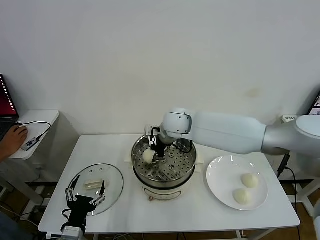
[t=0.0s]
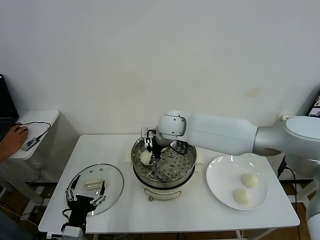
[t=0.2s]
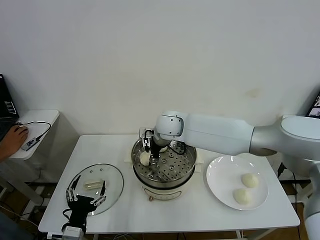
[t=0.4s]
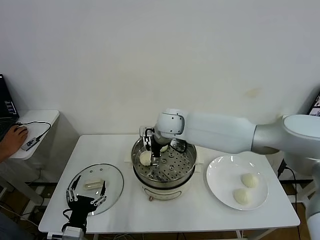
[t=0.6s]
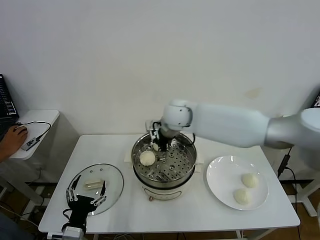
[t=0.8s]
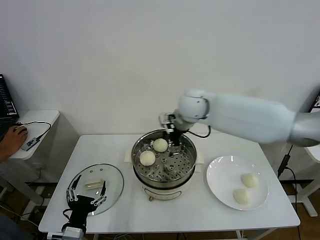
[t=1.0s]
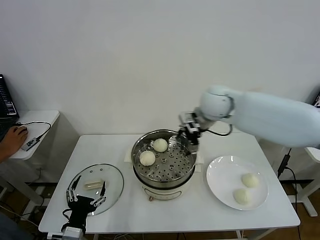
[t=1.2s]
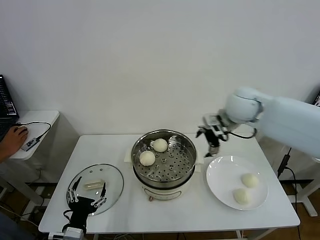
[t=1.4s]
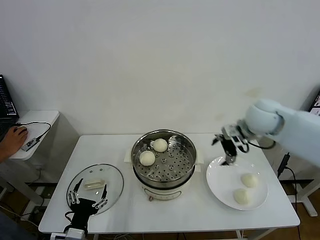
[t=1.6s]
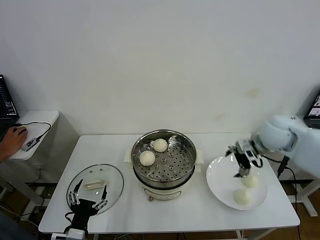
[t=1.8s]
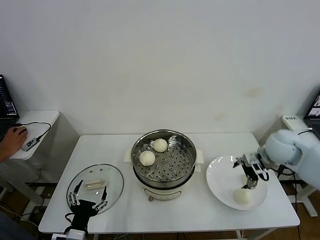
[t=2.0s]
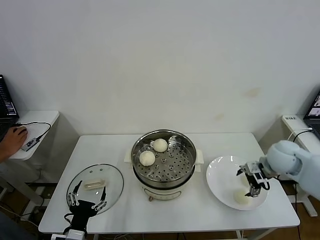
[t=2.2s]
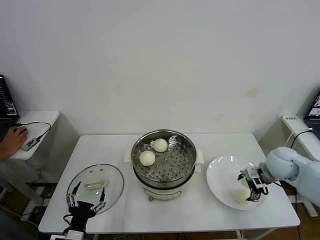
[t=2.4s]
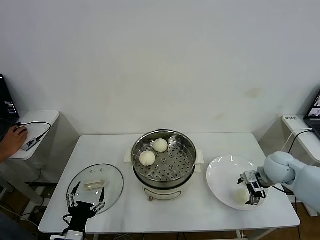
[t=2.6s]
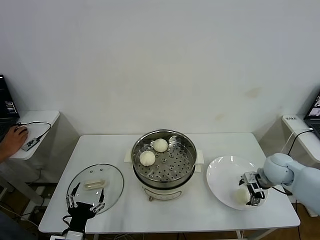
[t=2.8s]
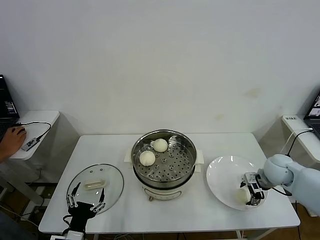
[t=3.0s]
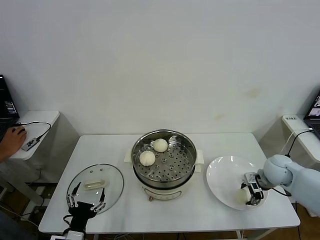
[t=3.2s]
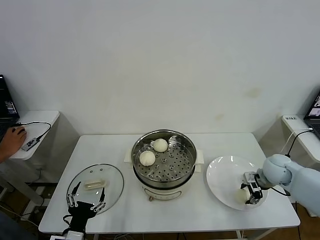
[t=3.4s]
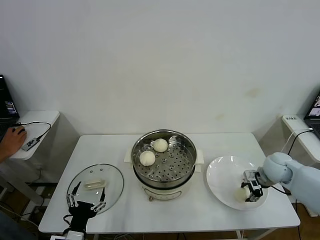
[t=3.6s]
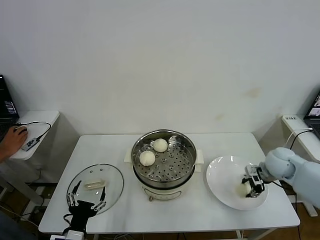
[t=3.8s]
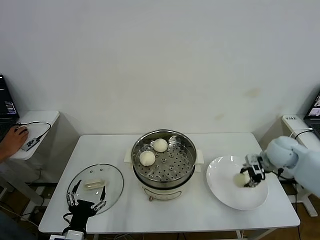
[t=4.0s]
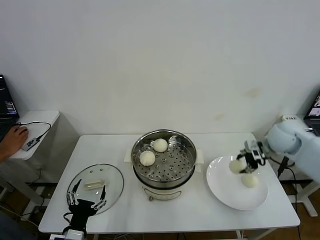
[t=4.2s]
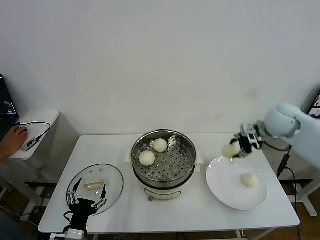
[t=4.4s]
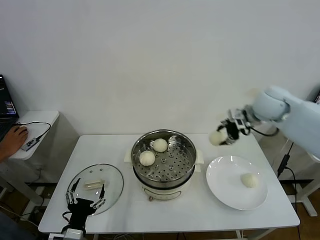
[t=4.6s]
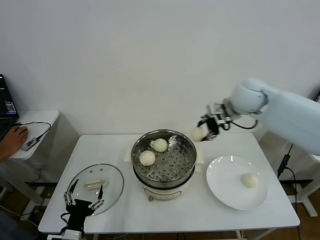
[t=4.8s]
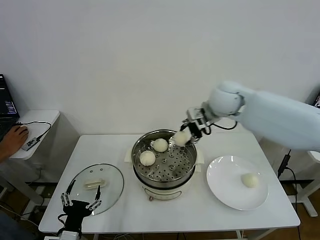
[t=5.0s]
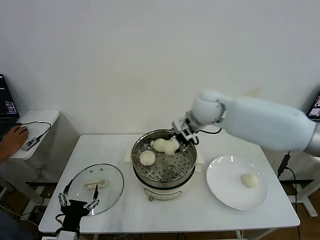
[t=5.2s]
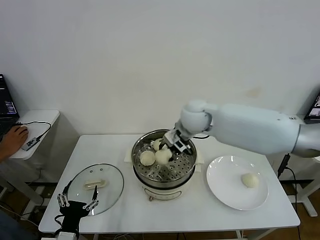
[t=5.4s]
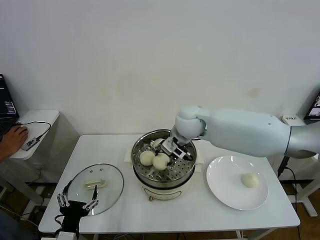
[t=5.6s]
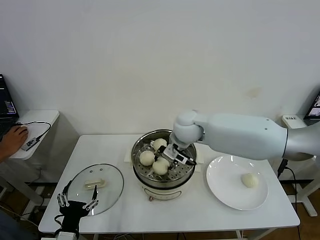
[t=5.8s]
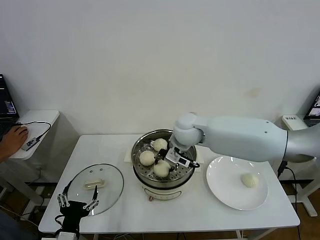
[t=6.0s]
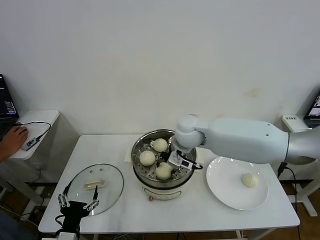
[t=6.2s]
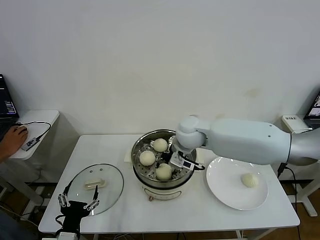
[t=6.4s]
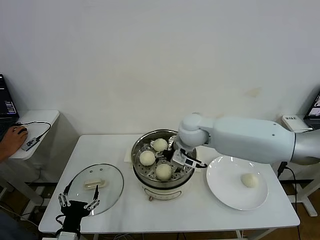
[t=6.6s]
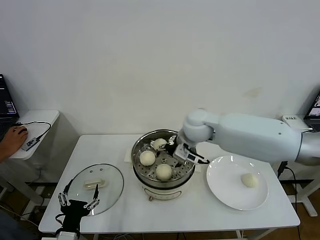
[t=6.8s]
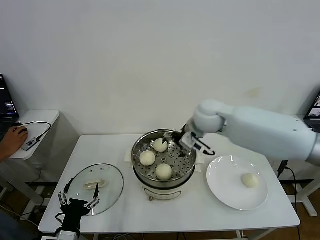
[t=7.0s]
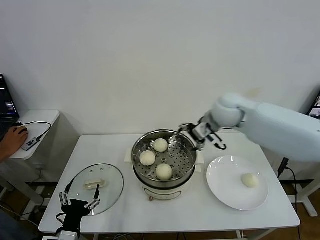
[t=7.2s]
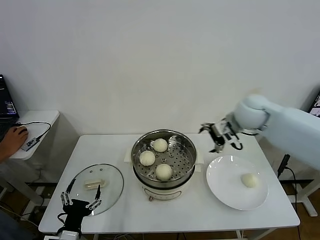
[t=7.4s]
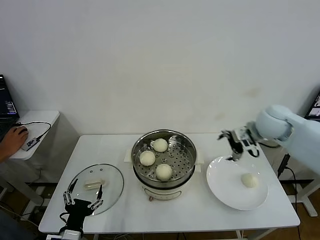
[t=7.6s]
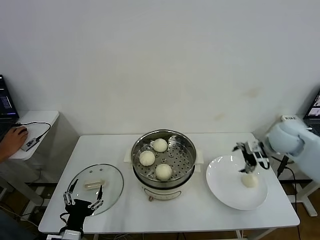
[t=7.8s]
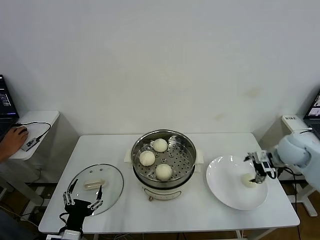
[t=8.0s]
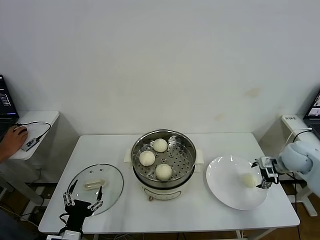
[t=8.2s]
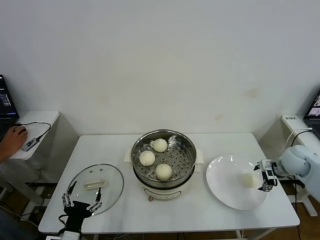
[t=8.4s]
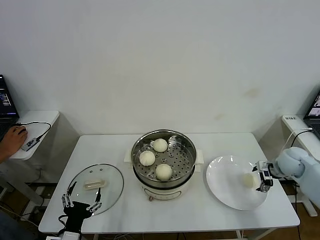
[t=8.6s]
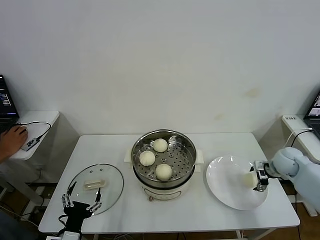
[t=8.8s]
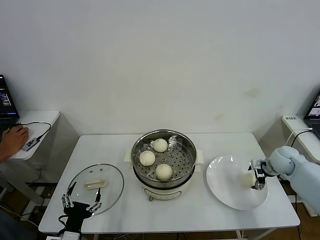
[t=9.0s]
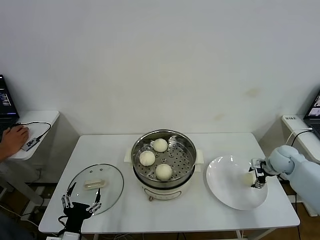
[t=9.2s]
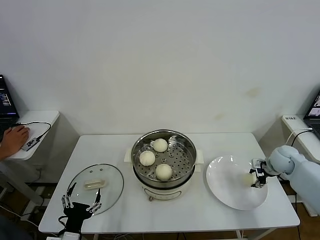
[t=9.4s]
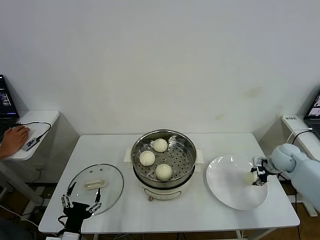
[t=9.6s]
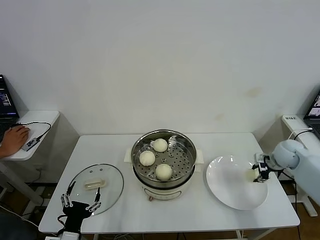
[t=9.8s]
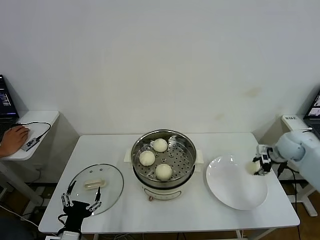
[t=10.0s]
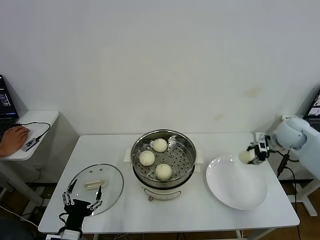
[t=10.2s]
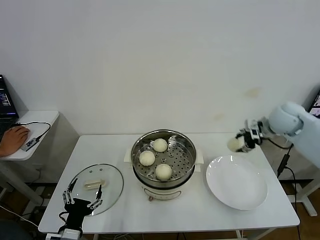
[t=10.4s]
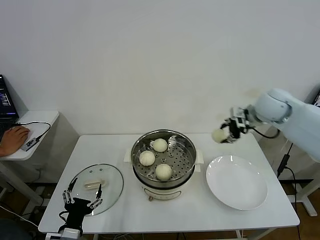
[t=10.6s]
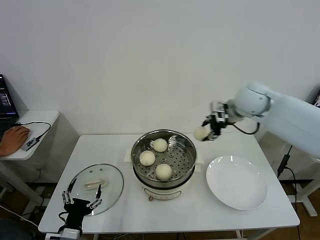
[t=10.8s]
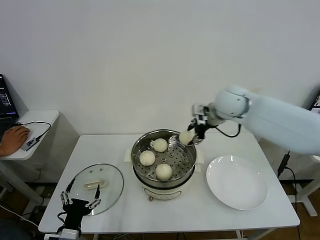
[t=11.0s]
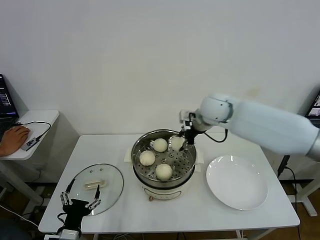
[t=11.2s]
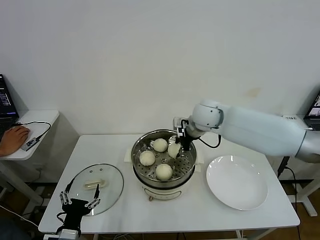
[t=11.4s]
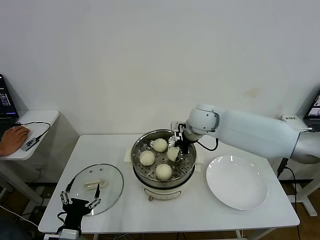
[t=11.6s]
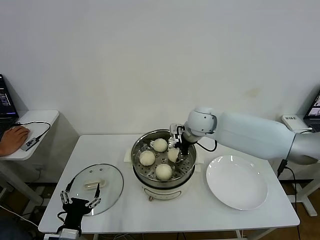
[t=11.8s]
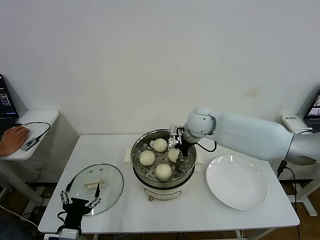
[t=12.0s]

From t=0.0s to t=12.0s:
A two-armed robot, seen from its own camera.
Task of the whole recording: take steamed baozi put them in steamer then cover it.
Step, from t=0.8s to t=3.4s: Grasp the baozi in the plate with right gripper.
Step, from t=3.8s to t=6.6s: Place the baozi on the steamer with right gripper.
Step, from t=6.8s to t=9.6s: Grasp the baozi in the plate with right gripper.
From t=0.0s to t=1.6s: The right gripper shifts about 25 cm to the right, and opens its fingers.
From t=1.6s to t=3.0s: The right gripper is displaced downward and to the right by some 20 cm.
From t=3.0s to t=4.4s: The right gripper is displaced upward and forward by approximately 15 cm, and closes.
From t=4.4s to t=6.0s: The right gripper travels to the left by about 30 cm.
From t=6.0s to t=7.6s: The right gripper goes some 25 cm to the right, and opens.
From t=7.6s to t=9.0s: The right gripper travels downward and to the right by about 20 cm.
From t=9.0s to t=10.4s: The right gripper moves upward, approximately 15 cm, and closes its fingers.
From t=10.4s to t=12.0s: The right gripper goes about 25 cm to the left.

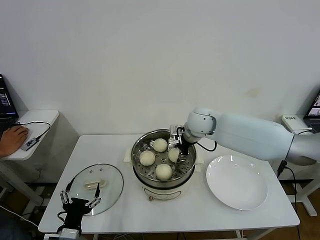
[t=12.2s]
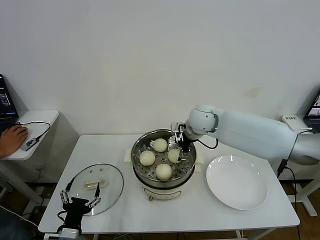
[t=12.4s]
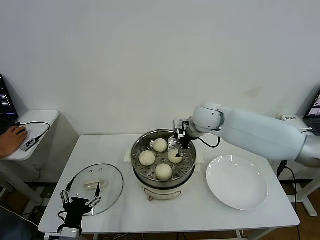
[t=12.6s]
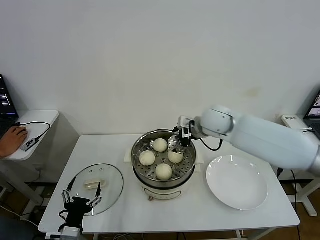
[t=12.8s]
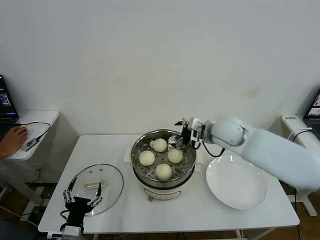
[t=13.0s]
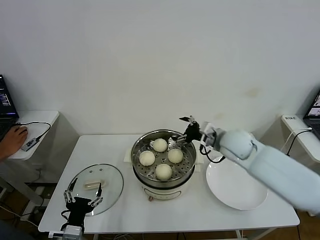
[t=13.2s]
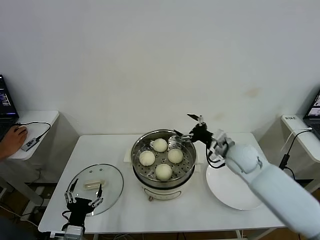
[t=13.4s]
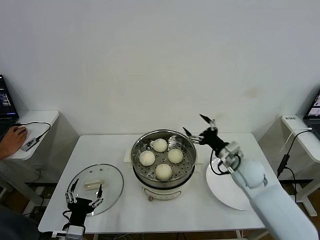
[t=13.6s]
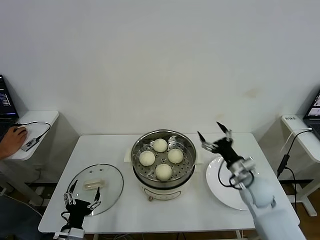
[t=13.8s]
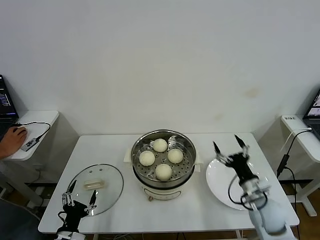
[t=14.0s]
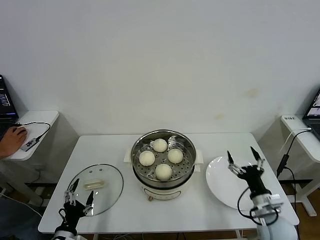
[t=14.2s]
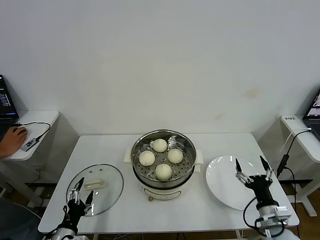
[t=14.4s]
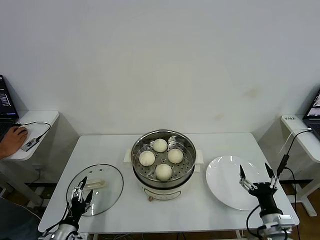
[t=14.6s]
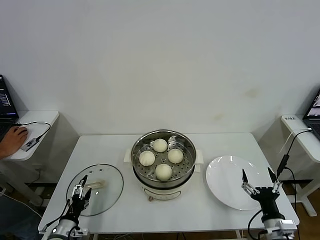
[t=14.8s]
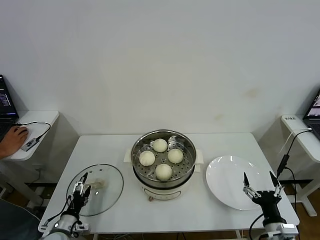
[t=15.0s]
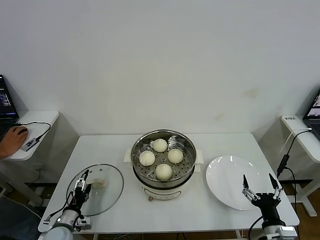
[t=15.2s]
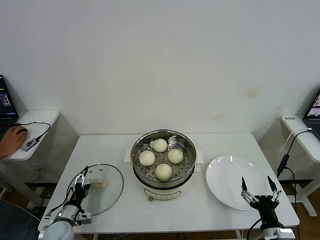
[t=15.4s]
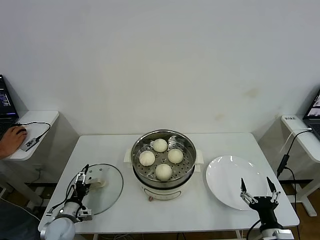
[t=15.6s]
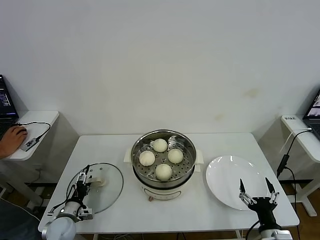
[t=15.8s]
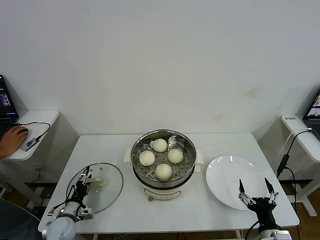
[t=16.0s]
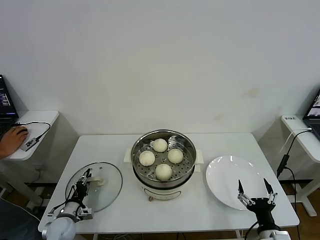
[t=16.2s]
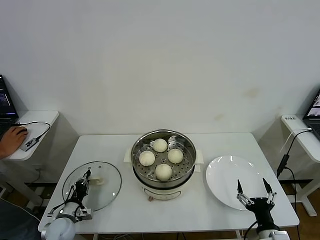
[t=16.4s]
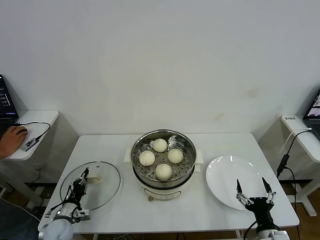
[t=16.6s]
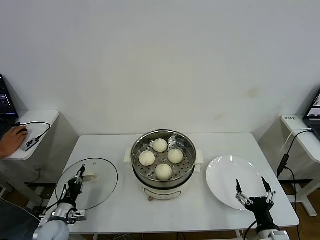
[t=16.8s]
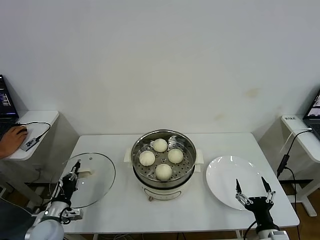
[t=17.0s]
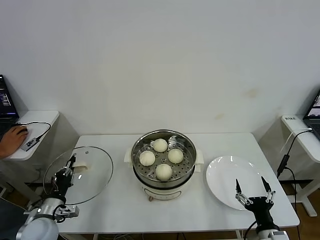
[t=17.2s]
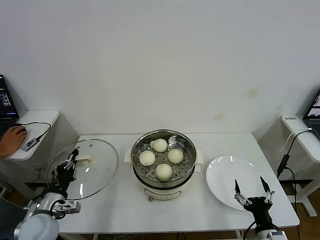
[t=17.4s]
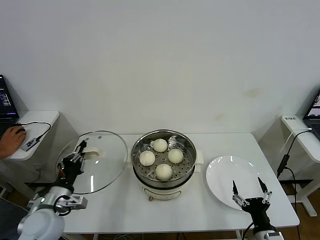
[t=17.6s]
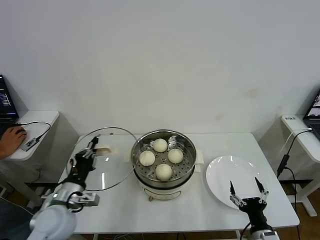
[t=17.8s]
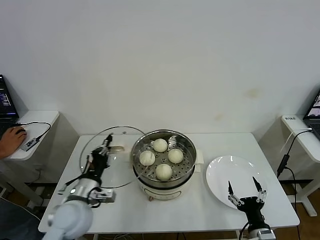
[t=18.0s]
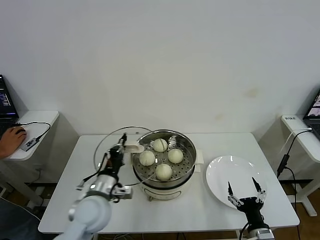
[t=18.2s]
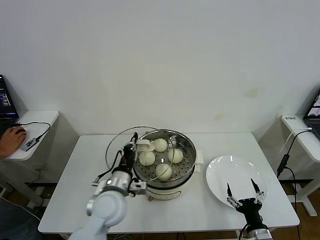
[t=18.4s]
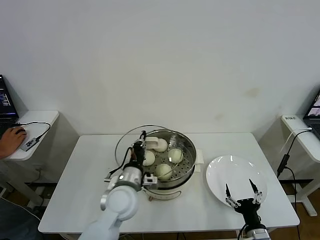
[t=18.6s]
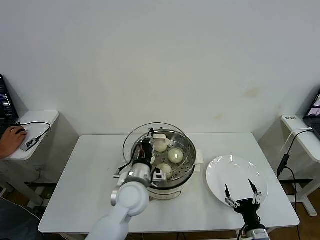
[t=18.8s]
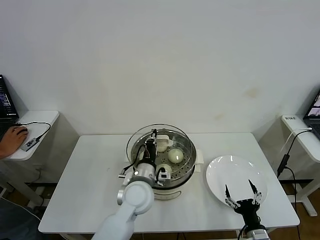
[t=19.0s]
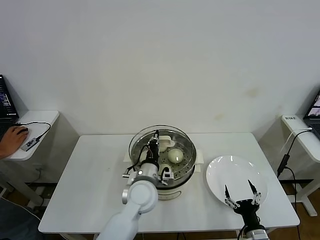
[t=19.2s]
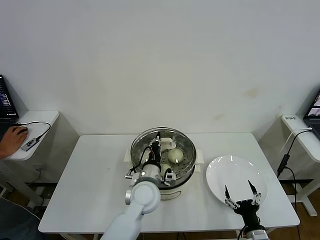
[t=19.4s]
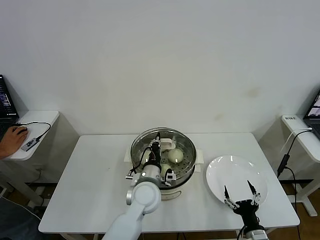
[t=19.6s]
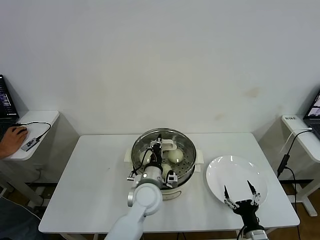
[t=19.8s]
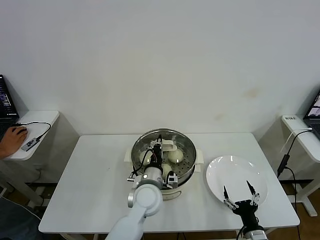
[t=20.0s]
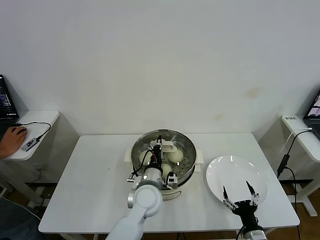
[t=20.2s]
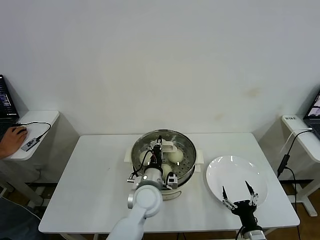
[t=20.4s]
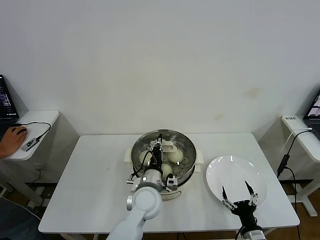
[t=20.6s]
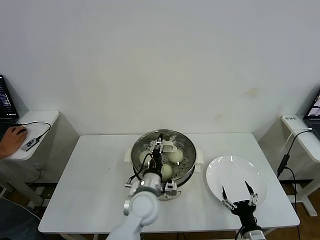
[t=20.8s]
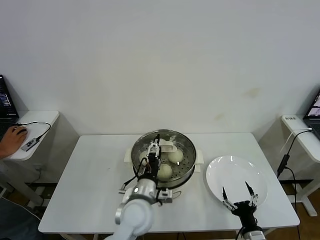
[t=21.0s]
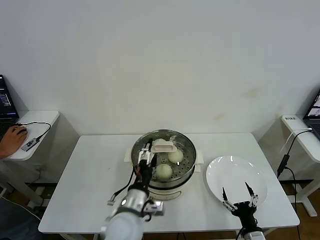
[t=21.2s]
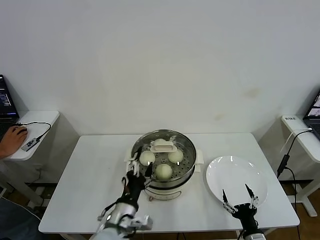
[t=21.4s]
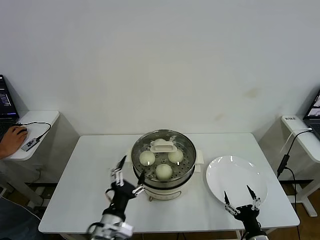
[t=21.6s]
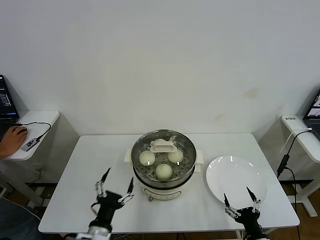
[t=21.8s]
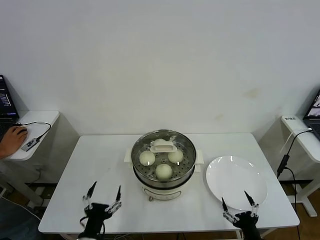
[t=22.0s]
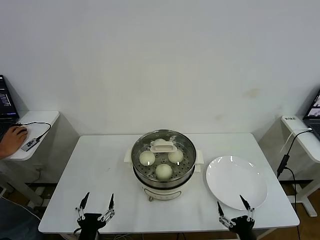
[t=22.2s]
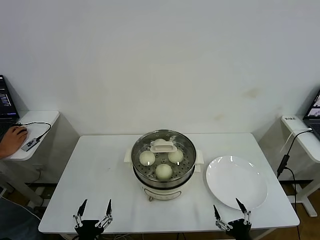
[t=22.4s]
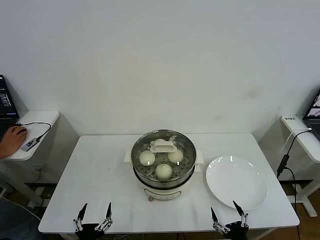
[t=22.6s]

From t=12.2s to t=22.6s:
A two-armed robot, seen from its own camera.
Task of the whole recording: take steamed baozi put them in steamer then cover it.
Step, from t=12.6s to t=16.6s: Grasp the pot lid with left gripper.
Step, from t=16.8s to t=20.8s: Place the pot lid on the steamer with left gripper.
From t=12.2s to t=13.6s: The right gripper goes about 20 cm to the right, backward and downward, and opens up.
From t=13.6s to t=15.2s: The left gripper travels to the left, downward and forward by roughly 15 cm. Meanwhile the right gripper moves backward and downward, about 25 cm.
From t=15.2s to t=16.6s: The left gripper closes.
From t=16.6s to t=18.2s: The left gripper goes approximately 25 cm upward and to the right.
From t=18.2s to t=19.6s: The left gripper is displaced to the right and forward by about 15 cm.
From t=19.6s to t=21.2s: The left gripper heads backward, covering roughly 10 cm, and opens.
From t=21.2s to t=22.6s: The left gripper travels backward, to the left and downward by about 25 cm. The right gripper travels backward by some 5 cm.
